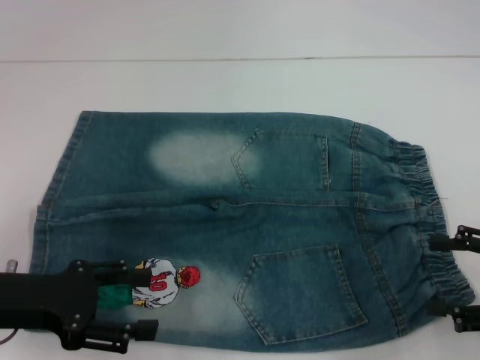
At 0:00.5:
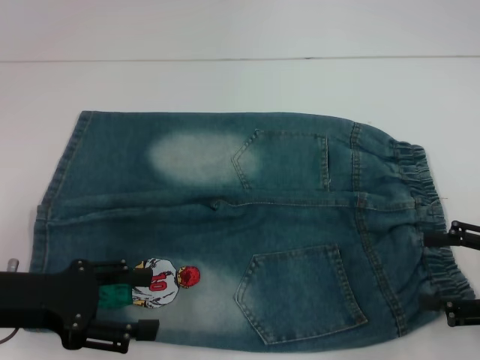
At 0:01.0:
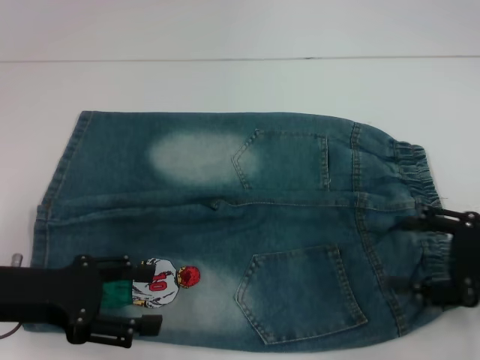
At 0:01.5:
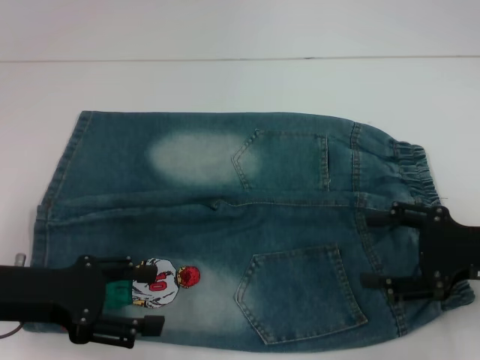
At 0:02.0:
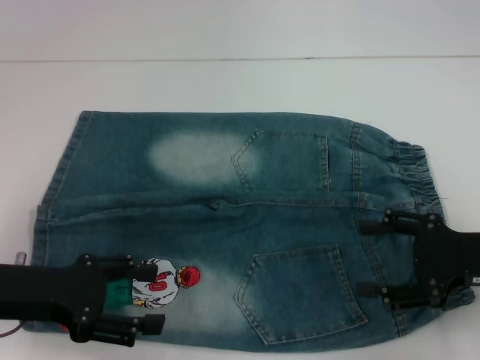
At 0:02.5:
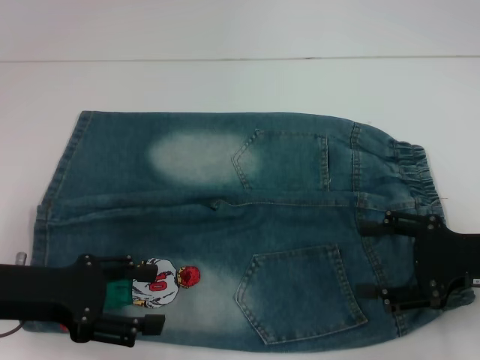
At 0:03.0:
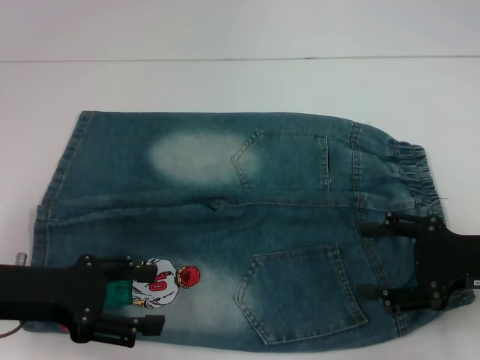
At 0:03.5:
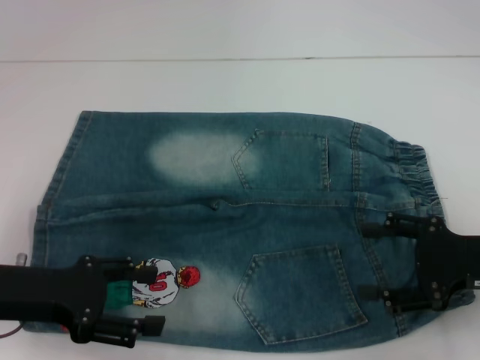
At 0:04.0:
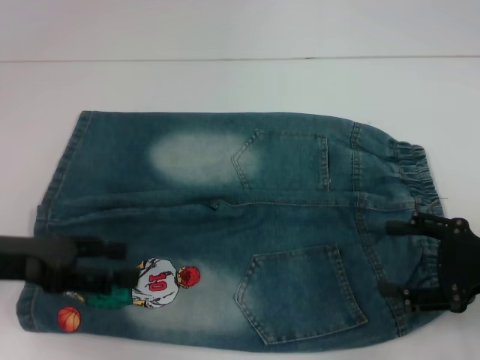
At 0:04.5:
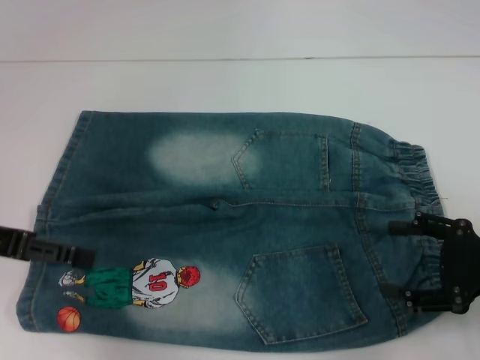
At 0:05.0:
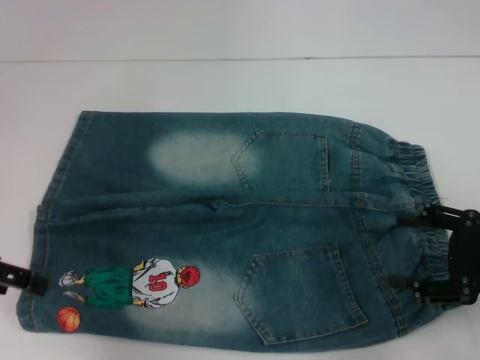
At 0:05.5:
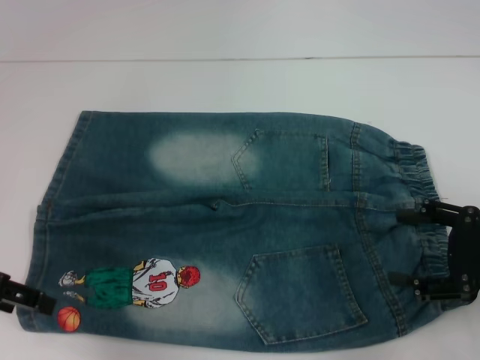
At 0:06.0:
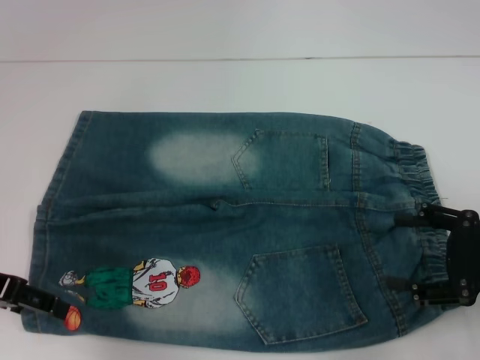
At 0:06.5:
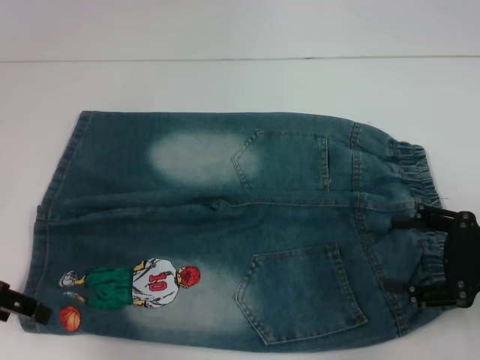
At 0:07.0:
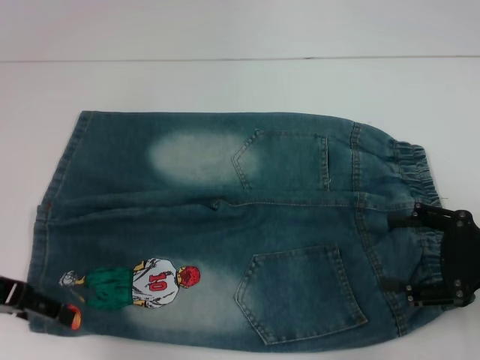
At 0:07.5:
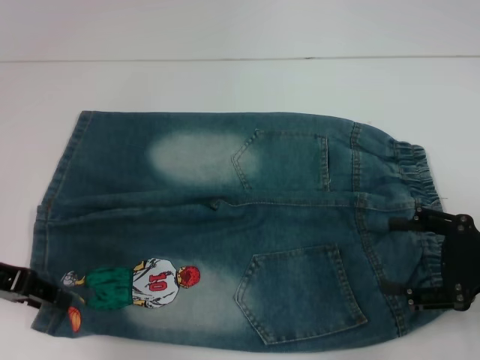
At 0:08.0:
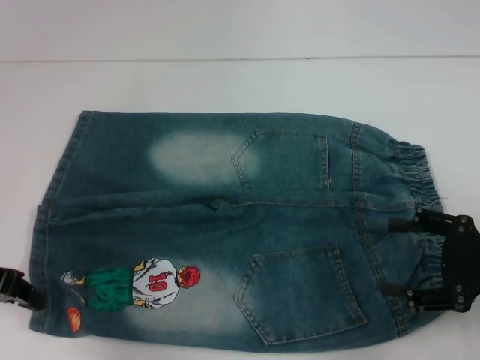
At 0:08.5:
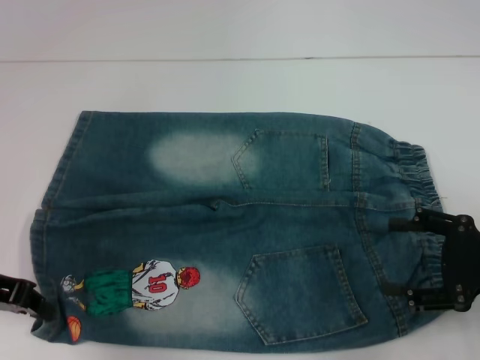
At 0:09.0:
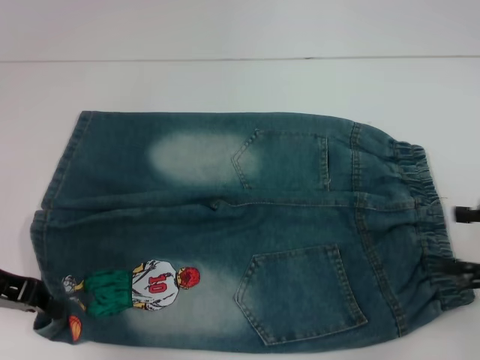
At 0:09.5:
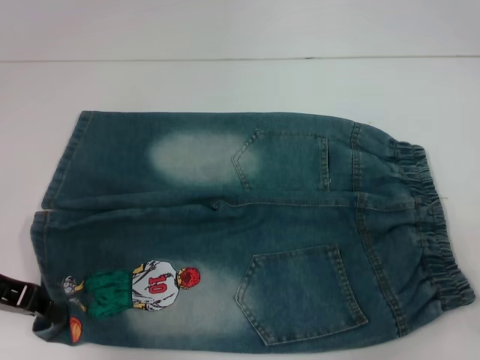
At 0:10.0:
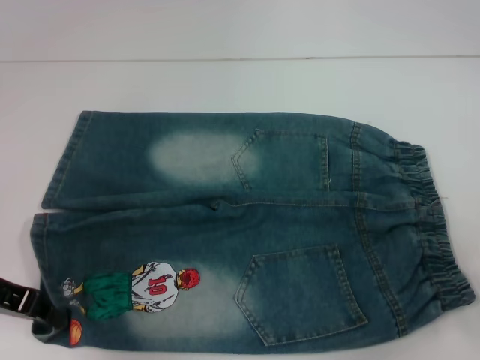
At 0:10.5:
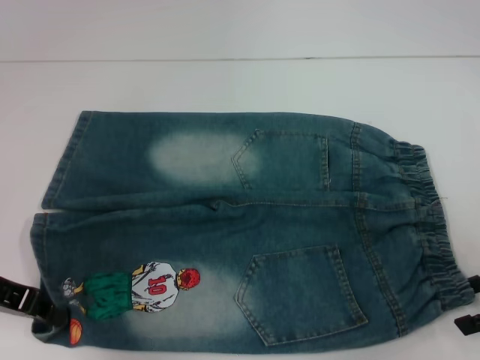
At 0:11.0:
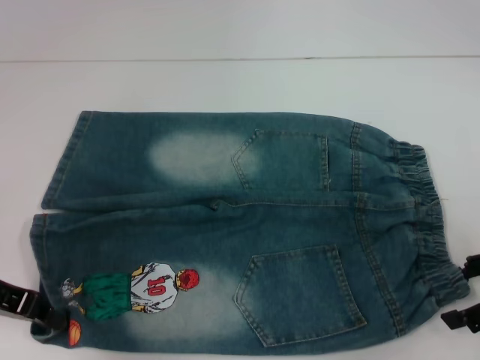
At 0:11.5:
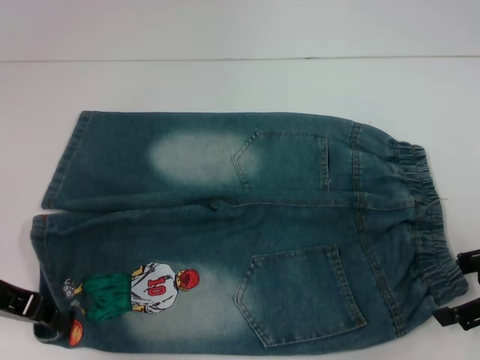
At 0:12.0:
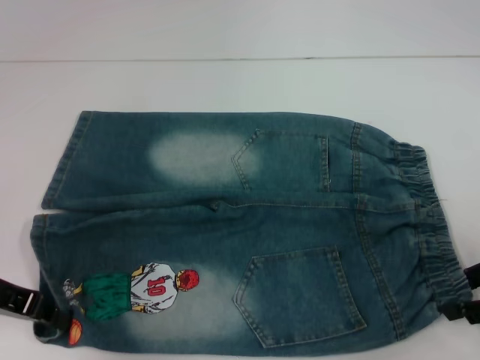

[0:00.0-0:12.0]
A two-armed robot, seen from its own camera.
Step, 0:00.0 to 0:08.0: Grab the lower left pant leg with your left hand.
0:00.0 to 0:02.0: The right gripper travels to the left by roughly 5 cm.
0:02.0 to 0:04.0: There are only small adjustments of the grippers.
0:06.0 to 0:08.0: The left gripper closes its fingers.
0:08.0 to 0:10.0: The right gripper is displaced to the right by approximately 5 cm.
0:10.0 to 0:12.0: The grippers move only a little.

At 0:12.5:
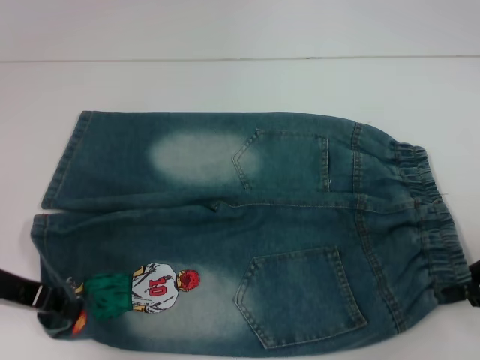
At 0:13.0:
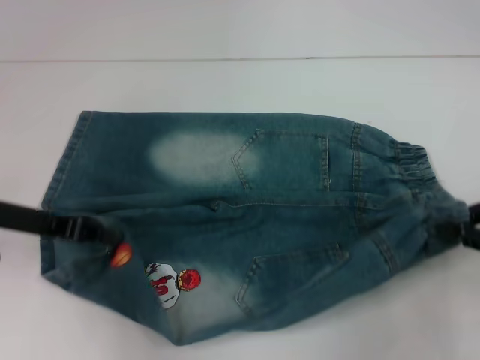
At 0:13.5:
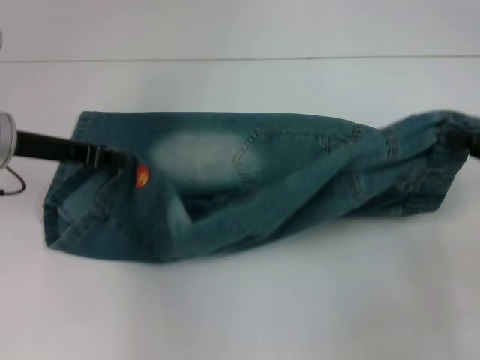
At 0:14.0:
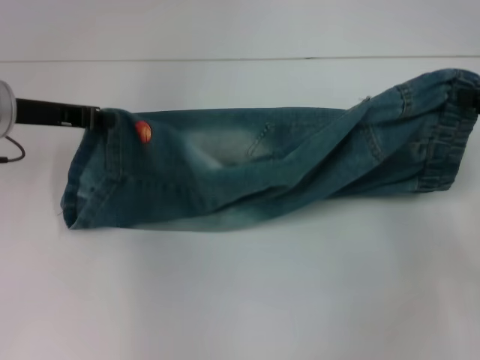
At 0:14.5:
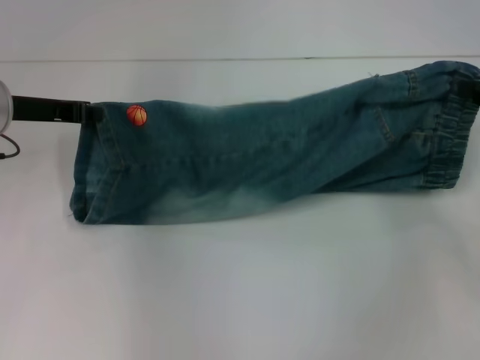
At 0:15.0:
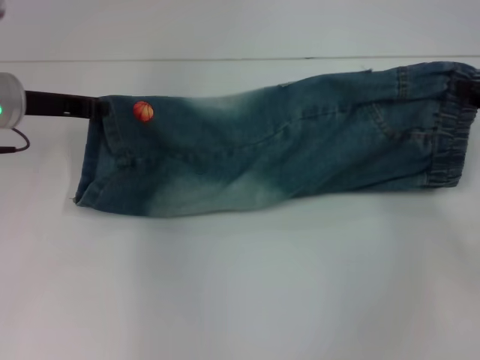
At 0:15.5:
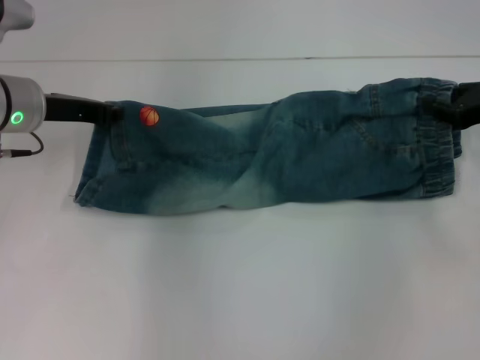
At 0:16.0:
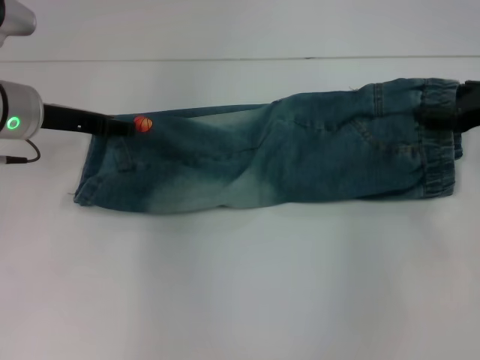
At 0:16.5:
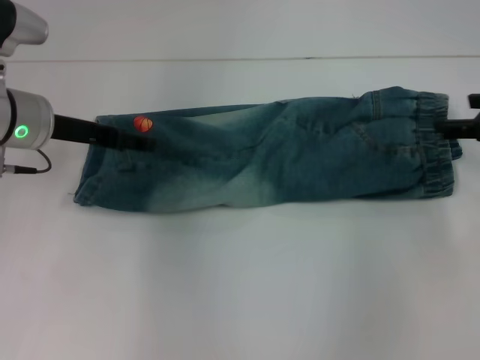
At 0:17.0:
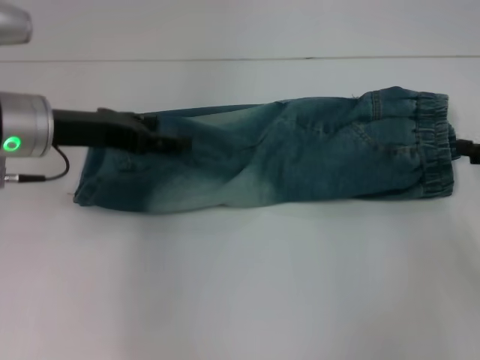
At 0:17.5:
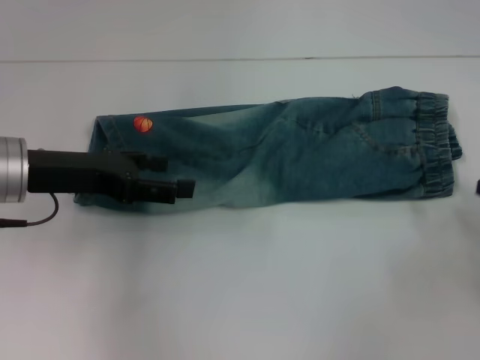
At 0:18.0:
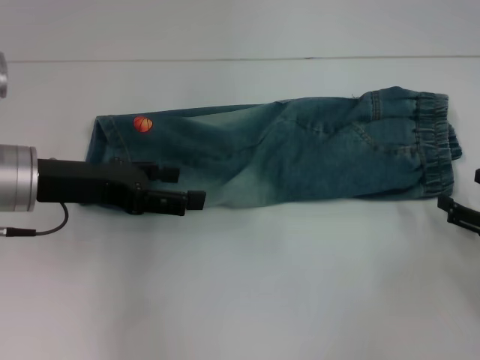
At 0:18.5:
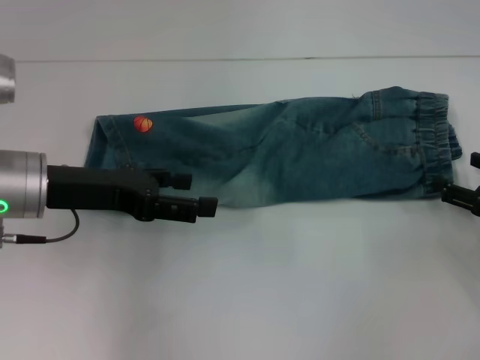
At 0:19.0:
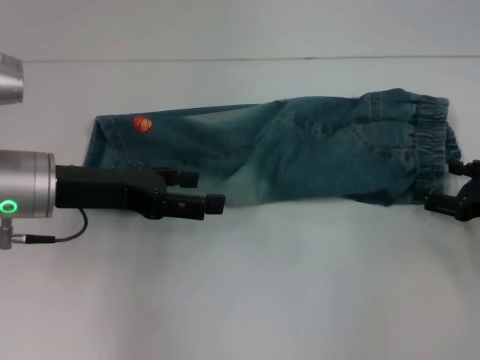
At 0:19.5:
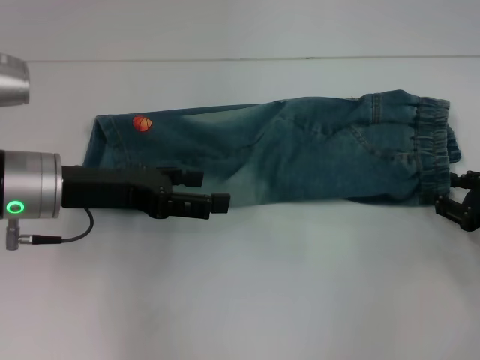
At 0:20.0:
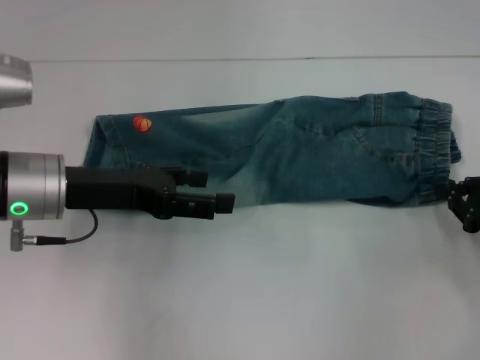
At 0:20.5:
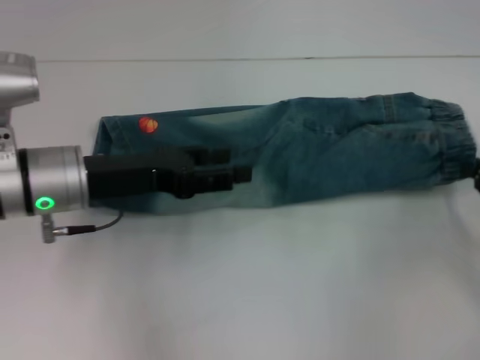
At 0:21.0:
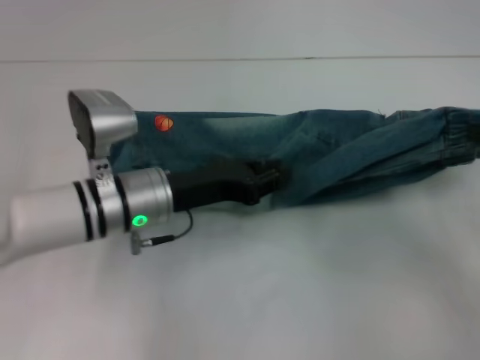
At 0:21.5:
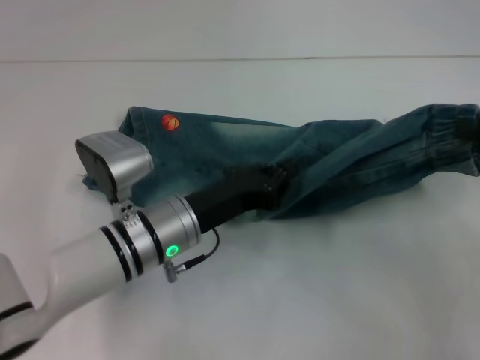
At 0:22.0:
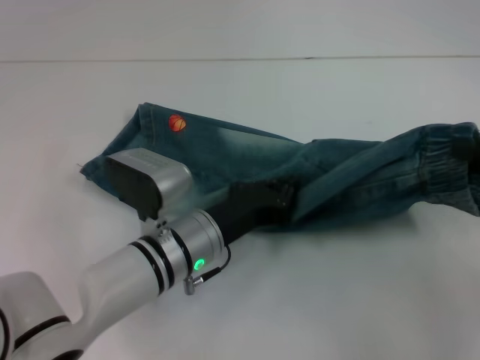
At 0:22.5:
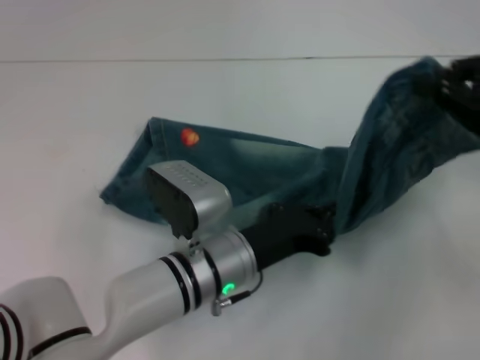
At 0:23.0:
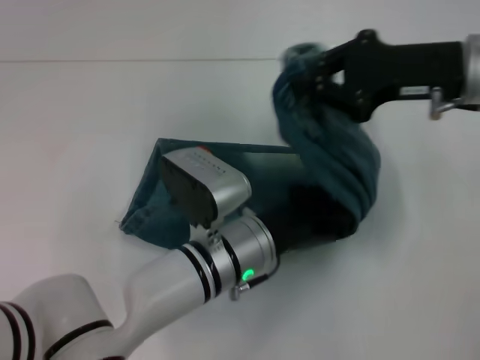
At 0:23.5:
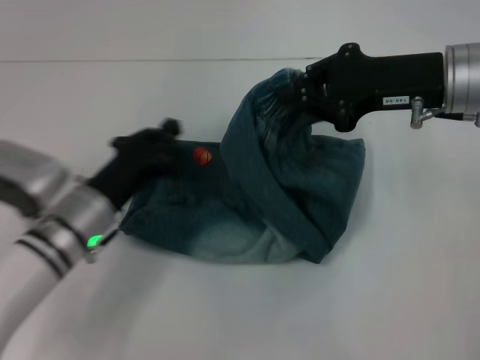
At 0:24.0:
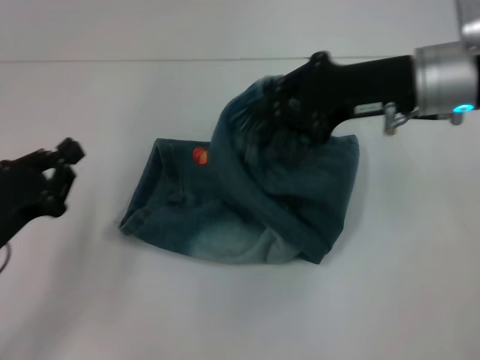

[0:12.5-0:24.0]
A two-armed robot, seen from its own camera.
Step, 0:12.5 to 0:16.0: Fold upward with your left hand.
Step, 0:16.5 to 0:20.0: Grab the waistband with your right hand.
Step, 0:20.5 to 0:23.0: Press the middle of the pants with your left hand.
0:12.5 to 0:14.5: The grippers both shift forward by approximately 10 cm.
0:14.5 to 0:16.5: The right gripper opens up. The left gripper opens.
0:16.5 to 0:18.5: The left gripper moves backward, some 10 cm. Meanwhile the right gripper travels downward and backward by some 15 cm.
0:18.5 to 0:20.0: The right gripper closes up.
0:20.0 to 0:22.0: The right gripper goes roughly 10 cm upward; the left gripper moves to the right and downward, roughly 15 cm, and closes its fingers.
0:22.0 to 0:24.0: The left gripper shifts approximately 20 cm to the left. The right gripper goes about 20 cm to the left and forward.

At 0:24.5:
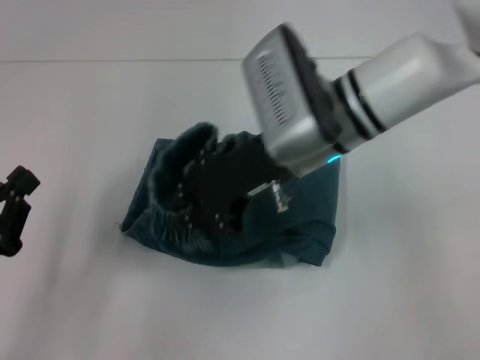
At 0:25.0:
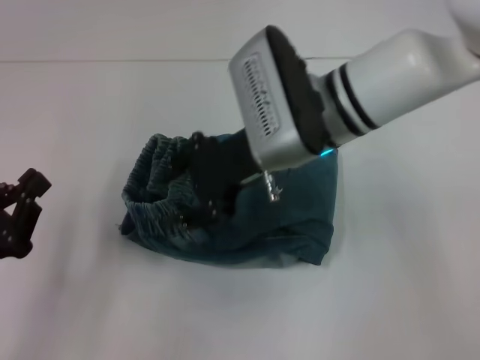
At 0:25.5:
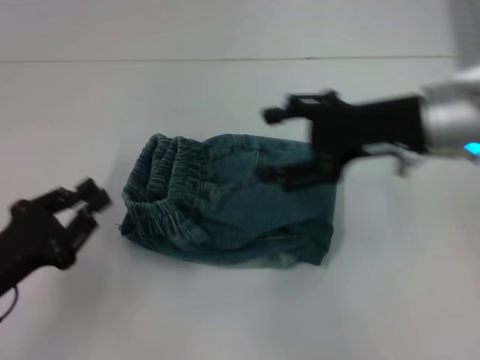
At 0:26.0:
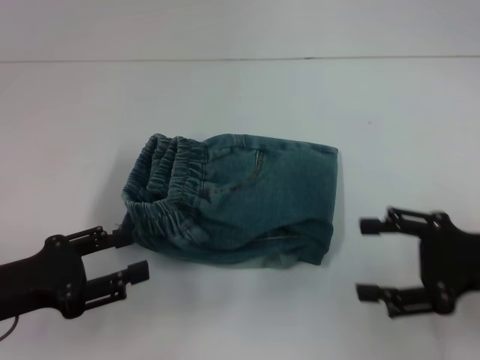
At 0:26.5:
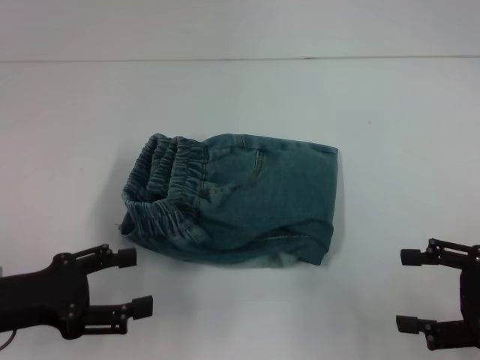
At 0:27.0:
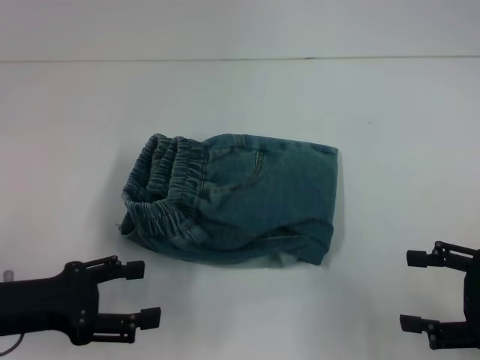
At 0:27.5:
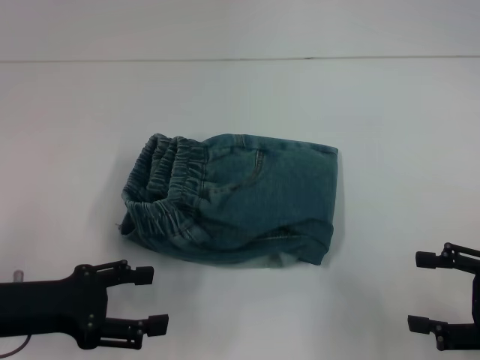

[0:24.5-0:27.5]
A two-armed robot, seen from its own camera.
0:24.5 to 0:26.0: The right gripper goes roughly 25 cm to the right and backward, and opens its fingers. Meanwhile the left gripper opens its fingers.
0:26.0 to 0:27.5: The left gripper opens; the right gripper moves roughly 5 cm.
